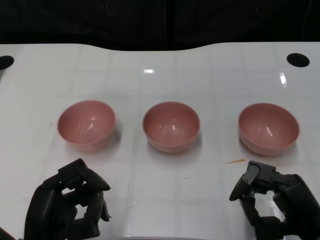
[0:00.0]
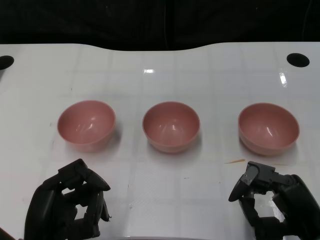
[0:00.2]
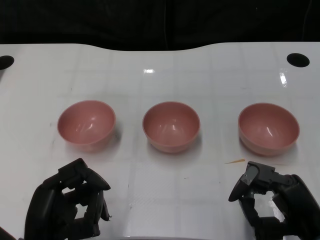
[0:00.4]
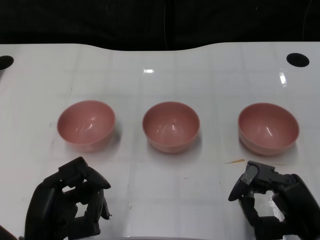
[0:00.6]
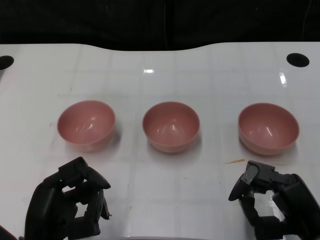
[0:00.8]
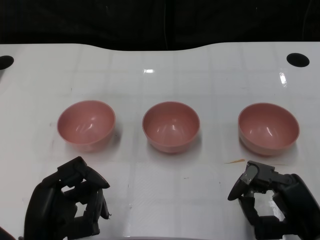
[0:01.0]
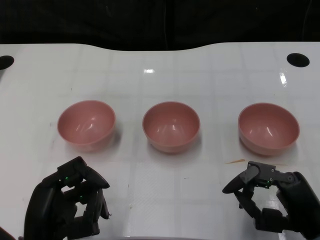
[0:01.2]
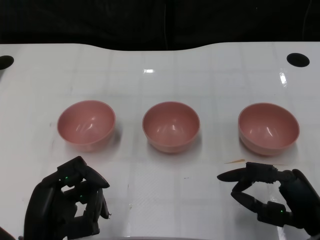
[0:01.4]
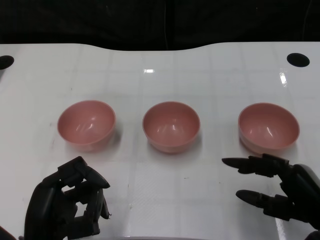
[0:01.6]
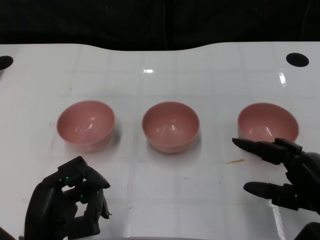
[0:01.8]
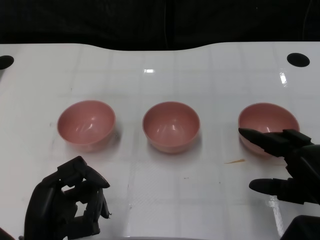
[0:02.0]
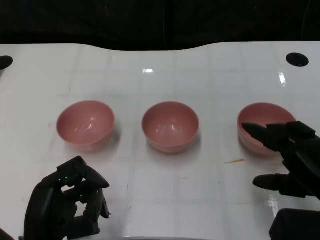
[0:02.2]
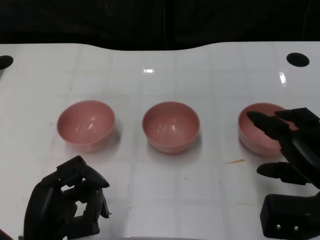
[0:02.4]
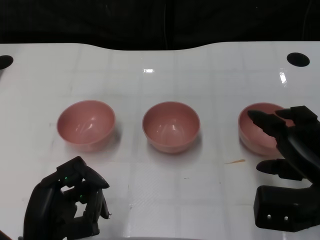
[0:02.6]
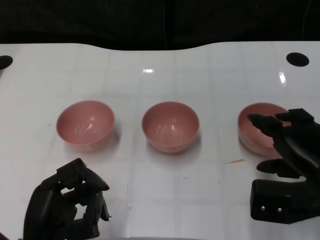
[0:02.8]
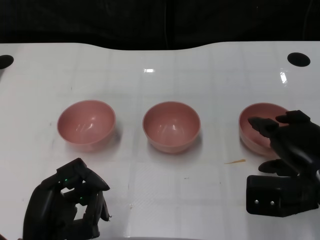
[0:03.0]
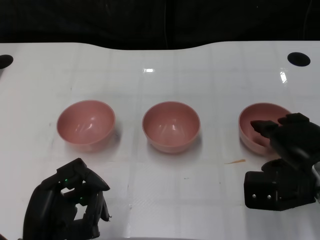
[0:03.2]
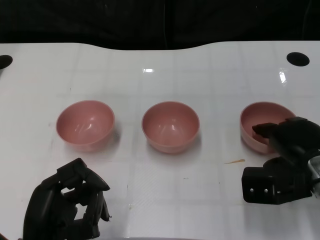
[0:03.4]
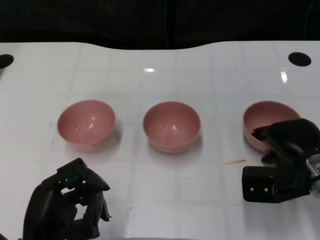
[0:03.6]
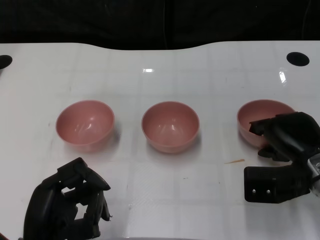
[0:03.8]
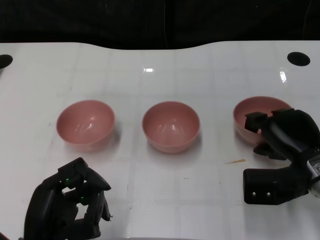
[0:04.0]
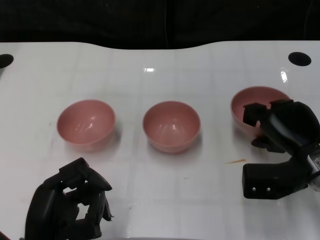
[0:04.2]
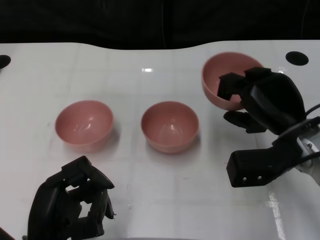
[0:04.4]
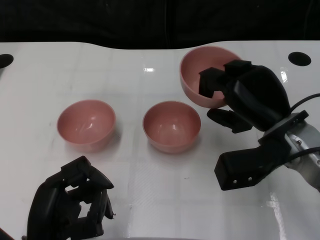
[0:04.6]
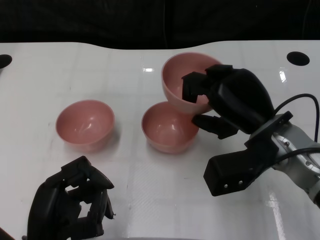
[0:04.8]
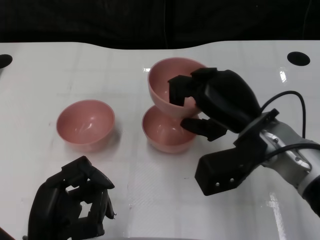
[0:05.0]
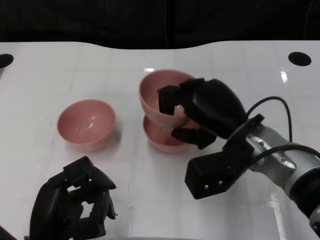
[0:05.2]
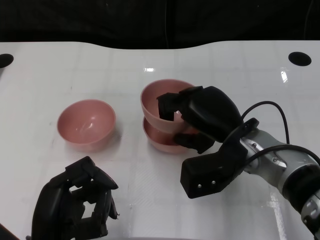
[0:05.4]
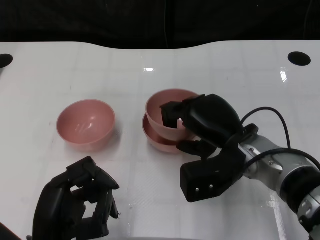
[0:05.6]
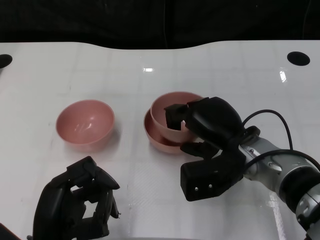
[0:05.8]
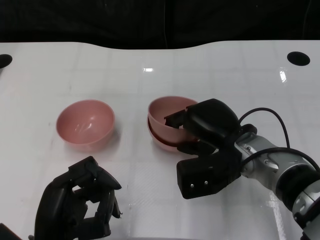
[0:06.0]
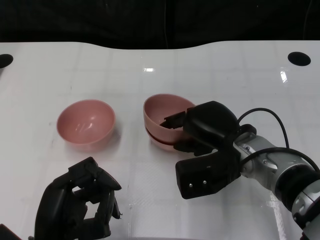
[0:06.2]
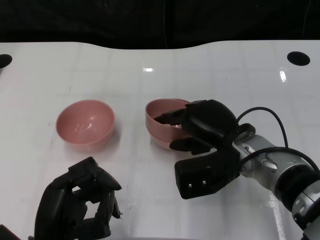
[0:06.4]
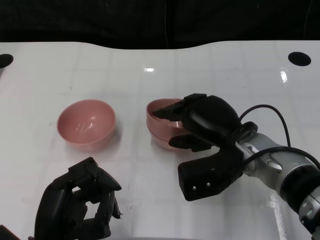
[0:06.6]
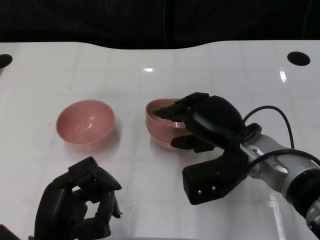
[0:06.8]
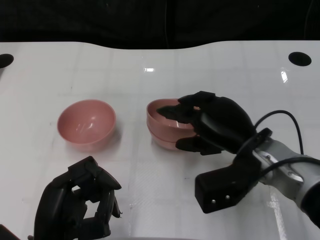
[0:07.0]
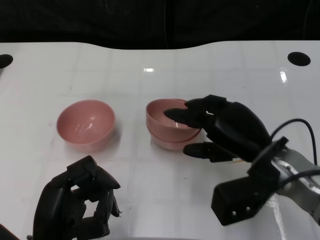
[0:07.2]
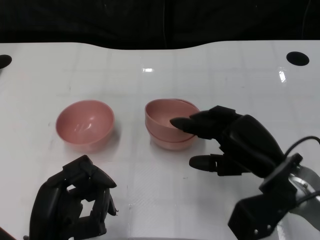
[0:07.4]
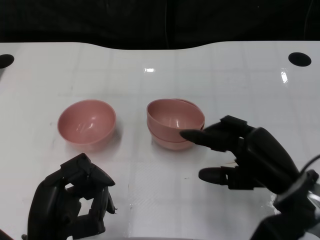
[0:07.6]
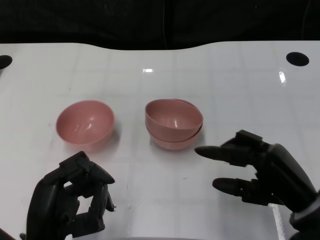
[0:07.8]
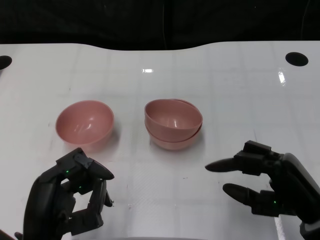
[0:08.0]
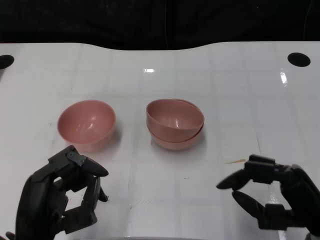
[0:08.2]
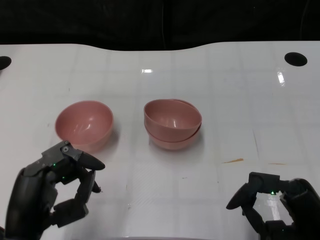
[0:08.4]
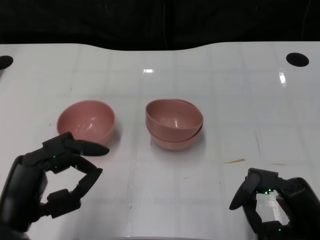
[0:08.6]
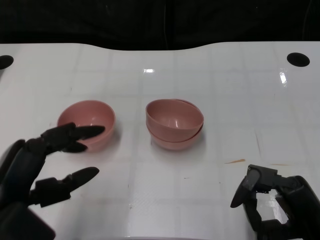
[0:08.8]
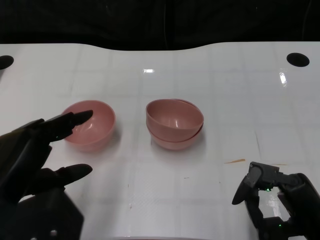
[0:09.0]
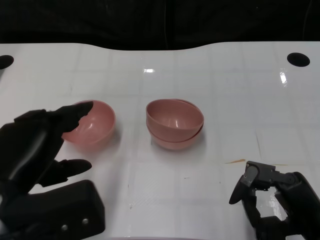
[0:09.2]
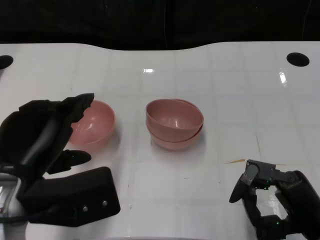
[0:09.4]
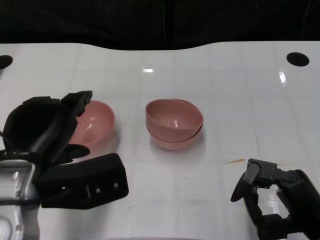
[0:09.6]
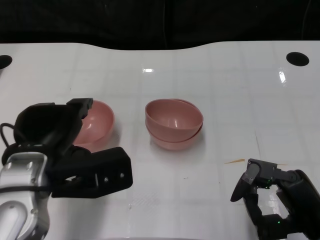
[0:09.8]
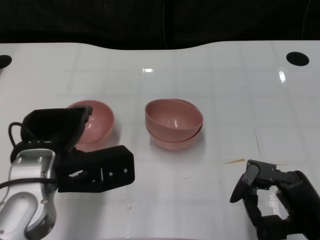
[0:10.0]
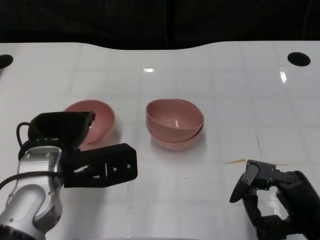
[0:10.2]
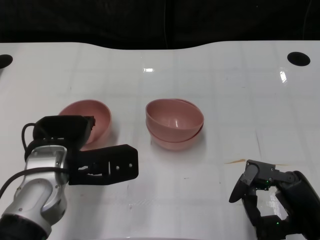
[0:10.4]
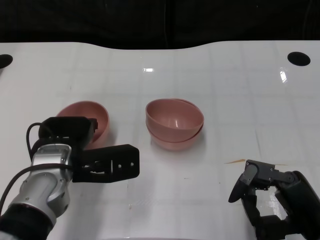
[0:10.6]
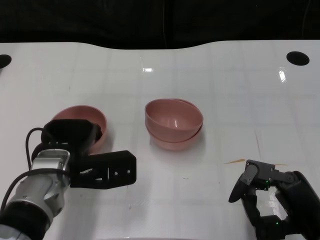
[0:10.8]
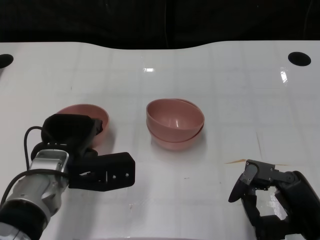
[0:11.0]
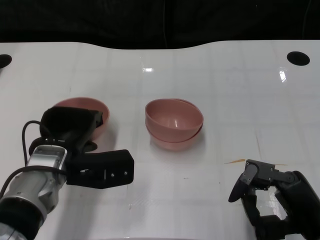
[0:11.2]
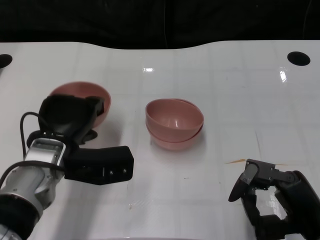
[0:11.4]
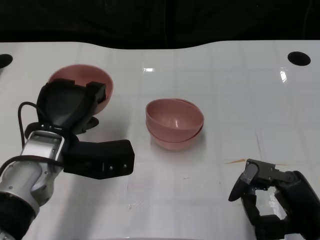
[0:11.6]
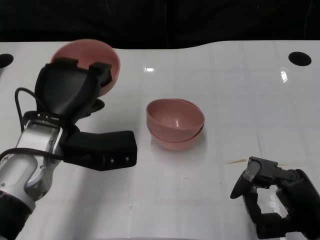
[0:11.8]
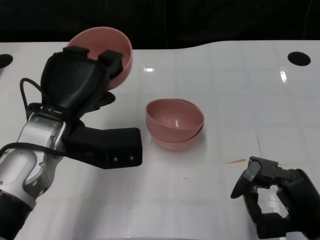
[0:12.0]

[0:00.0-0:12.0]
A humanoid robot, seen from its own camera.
Task of the whole recording: Pick up the bowl on one side of the table and place it on top of the middle bowl, then pick up the bowl on the other side of the table and place it on top of the middle bowls.
Step, 1.2 to 4.0 s: Grasp the bowl on the right with the right gripper.
Step, 4.2 to 7.2 s: Place the bowl on the right onto the bowl in the middle with right gripper.
Step, 7.4 to 11.0 s: Grasp the bowl on the left with the left gripper.
1.6 to 3.0 s: The right hand travels forward by approximately 5 cm.
3.0 to 4.4 s: The right hand changes place by some 5 cm.
4.4 to 6.0 s: The right hand shifts some 10 cm to the left.
6.0 to 7.6 s: The right hand travels to the right and backward by approximately 10 cm.
7.6 to 9.0 s: The left hand goes about 10 cm upward, while the right hand is displaced backward by some 5 cm.
9.0 to 10.4 s: The left hand travels forward and to the right by some 10 cm.
10.4 to 12.0 s: The left hand moves approximately 5 cm.

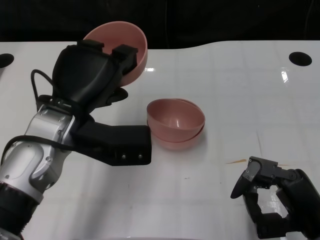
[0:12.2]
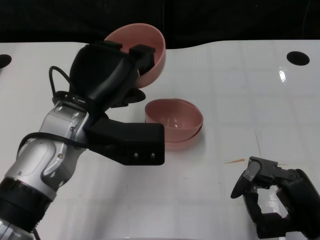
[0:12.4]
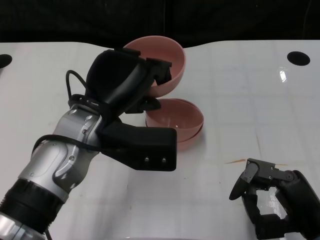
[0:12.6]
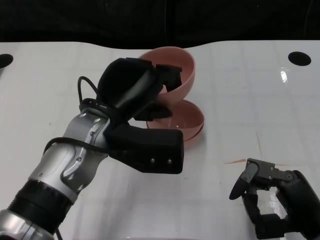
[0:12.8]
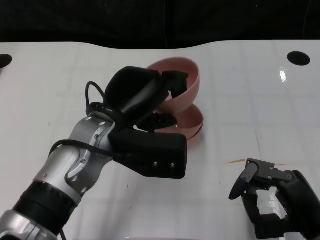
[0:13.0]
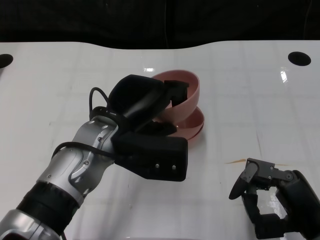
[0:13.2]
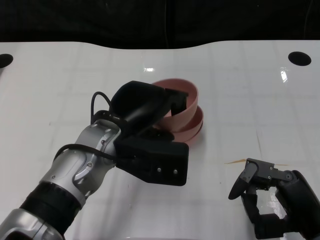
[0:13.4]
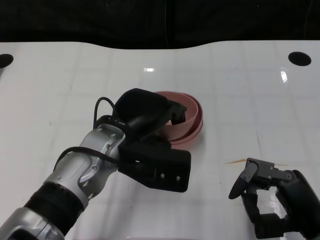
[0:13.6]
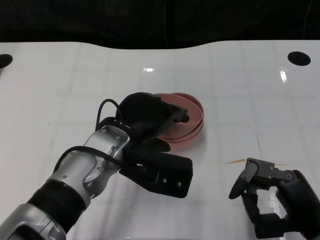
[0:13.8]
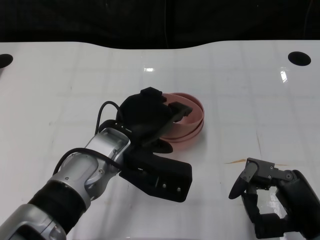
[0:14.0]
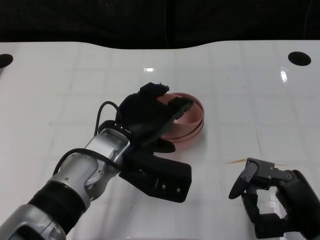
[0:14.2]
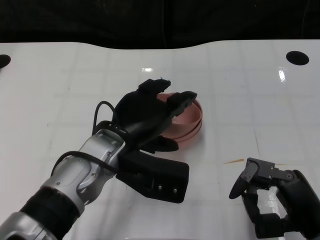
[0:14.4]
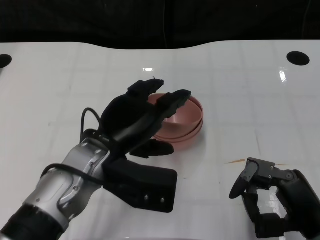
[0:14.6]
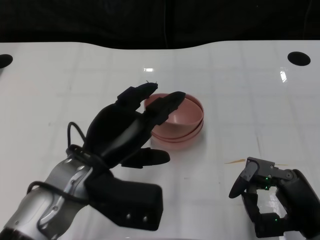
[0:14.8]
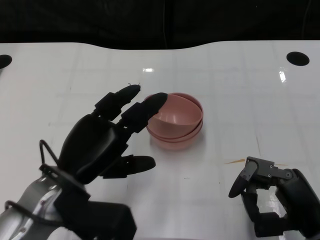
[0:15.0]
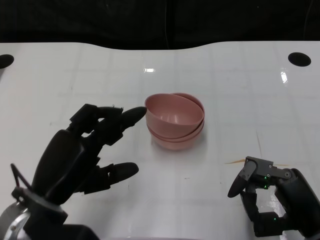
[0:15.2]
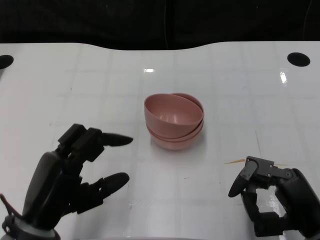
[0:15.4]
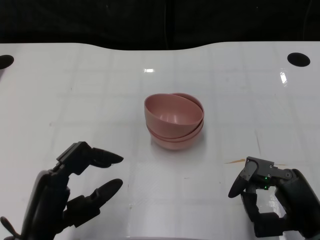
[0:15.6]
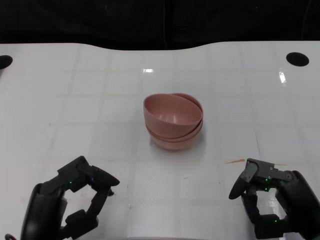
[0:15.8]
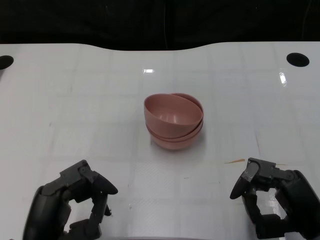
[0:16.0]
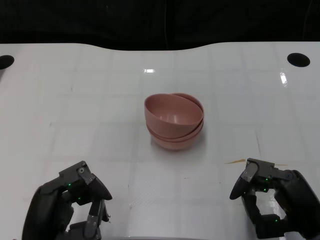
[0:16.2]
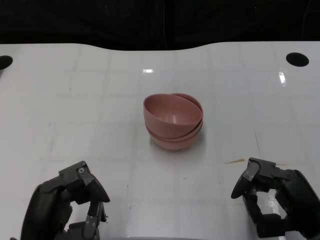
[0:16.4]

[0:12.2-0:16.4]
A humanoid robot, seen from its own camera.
Task of the whole recording: Pick up the bowl on one side of the table and place it on top of the middle bowl, then pick up the bowl on the other side of the table and place it on top of the middle bowls.
Step, 12.2 to 14.8 s: Place the bowl on the left onto the bowl in the middle with left gripper.
12.2 to 13.6 s: The left hand shifts roughly 5 cm to the right.
13.6 to 15.0 s: The left hand is displaced to the left and backward by approximately 10 cm.
15.0 to 16.4 s: The left hand heads backward and downward, covering roughly 10 cm.

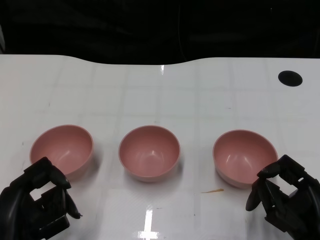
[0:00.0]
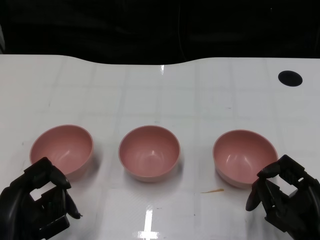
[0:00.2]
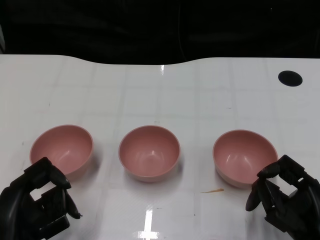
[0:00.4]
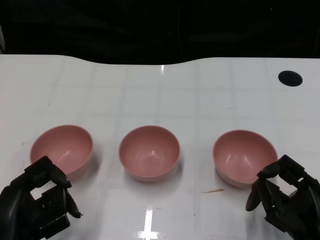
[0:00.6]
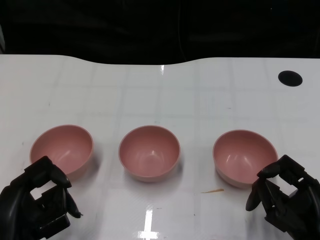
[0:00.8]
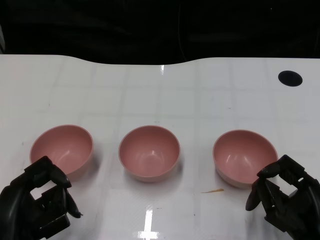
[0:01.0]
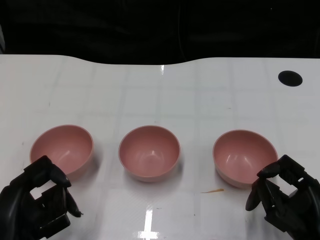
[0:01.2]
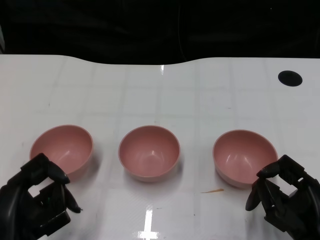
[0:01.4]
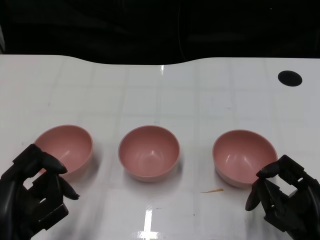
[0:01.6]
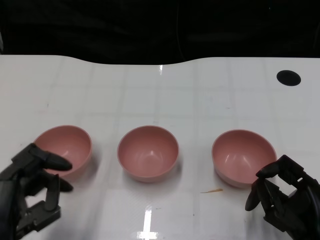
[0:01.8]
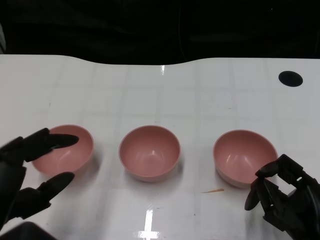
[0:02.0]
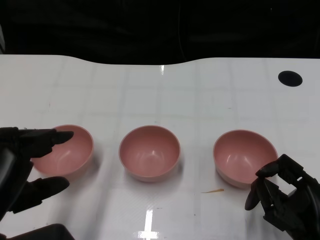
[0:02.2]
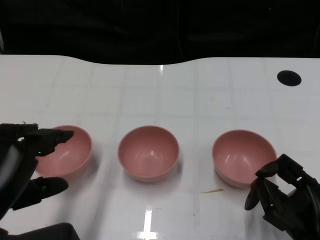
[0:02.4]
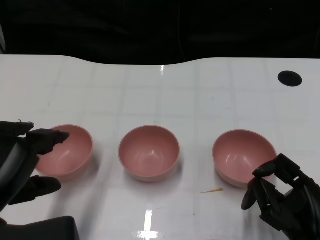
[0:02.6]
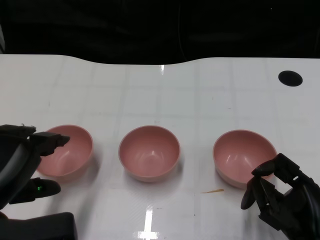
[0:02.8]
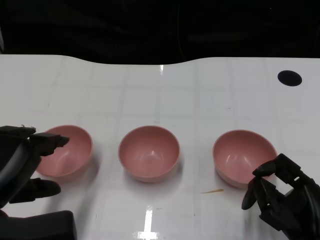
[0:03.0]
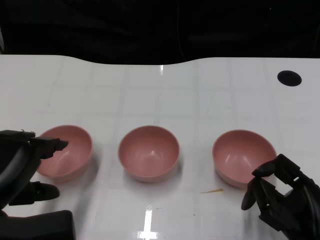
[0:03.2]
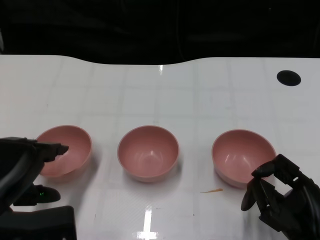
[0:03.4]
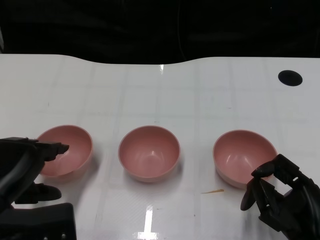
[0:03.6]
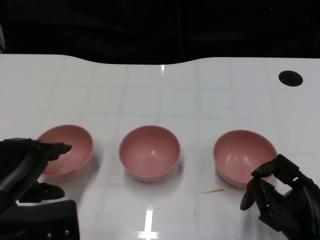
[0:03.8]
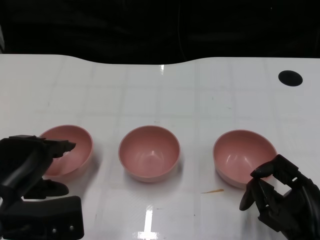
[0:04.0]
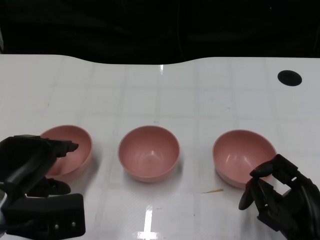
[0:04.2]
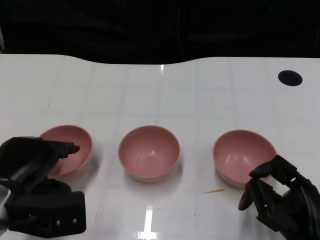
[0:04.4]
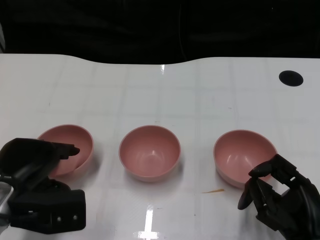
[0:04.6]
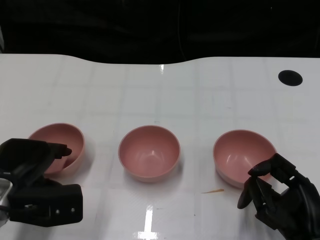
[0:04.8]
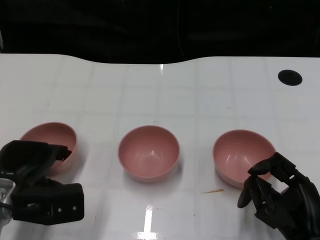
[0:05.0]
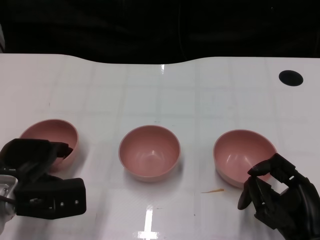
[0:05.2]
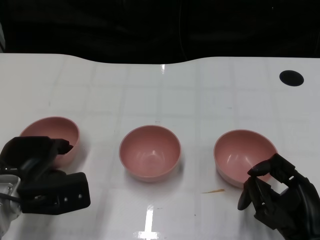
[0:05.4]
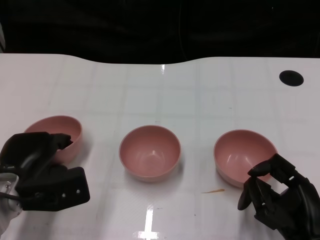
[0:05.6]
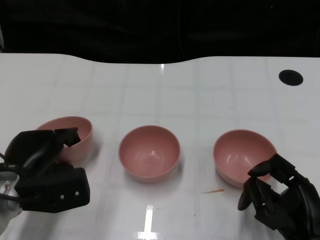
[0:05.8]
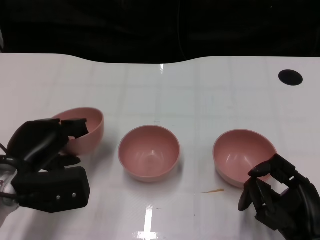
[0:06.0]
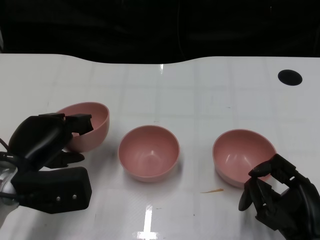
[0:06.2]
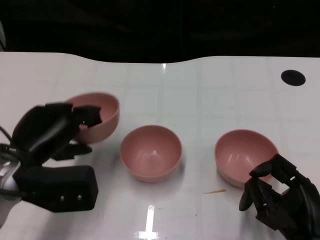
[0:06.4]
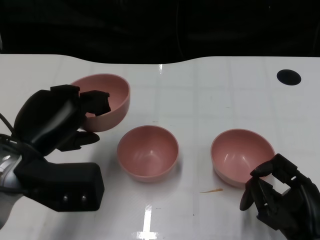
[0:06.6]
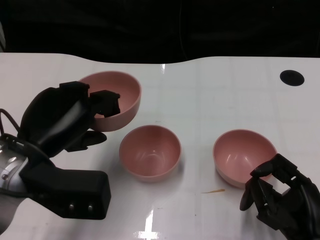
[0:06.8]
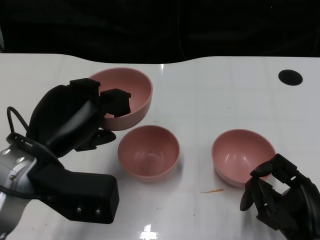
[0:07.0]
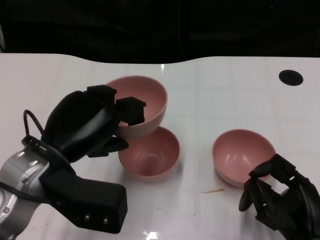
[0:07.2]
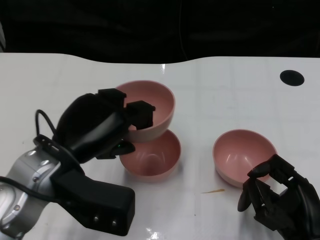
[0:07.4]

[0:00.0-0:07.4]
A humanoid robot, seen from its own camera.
Task of the whole recording: Pick up the bowl on one side of the table and place it on top of the middle bowl, then pick up the bowl on the other side of the table and place it on top of the middle bowls.
Step, 1.4 to 5.6 s: Grasp the bowl on the left with the left gripper.
1.4 to 3.0 s: The left hand travels upward by about 5 cm.
3.0 to 4.4 s: The left hand moves forward and downward, approximately 10 cm.
4.4 to 6.0 s: The hands make only small movements.
6.0 to 7.4 s: The left hand is displaced upward and to the right by roughly 10 cm.
